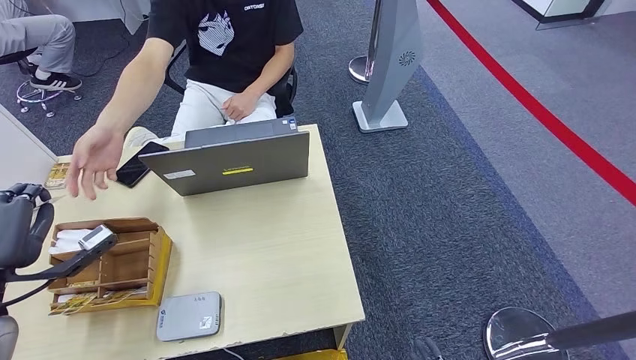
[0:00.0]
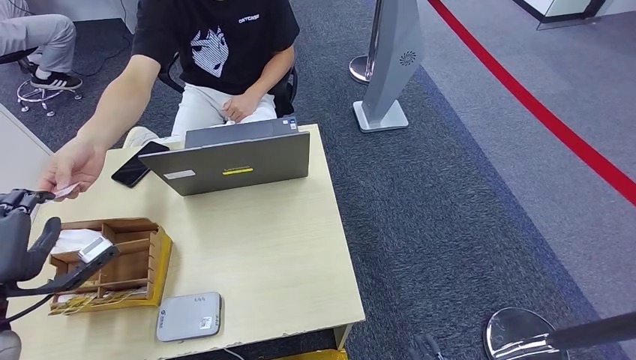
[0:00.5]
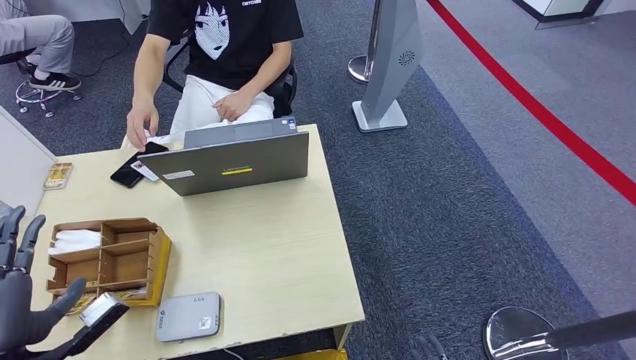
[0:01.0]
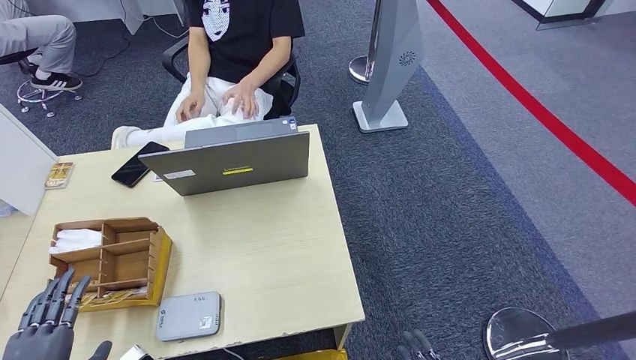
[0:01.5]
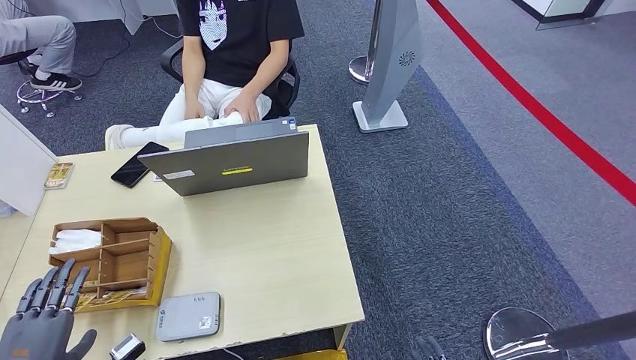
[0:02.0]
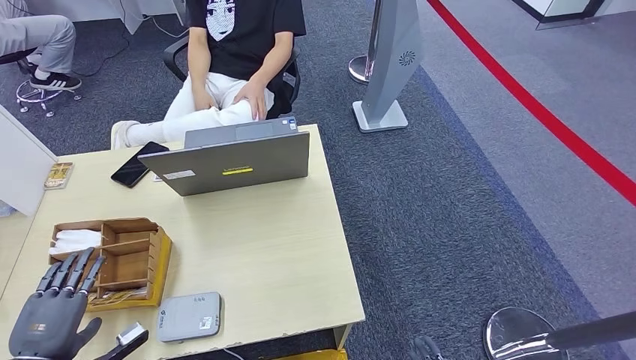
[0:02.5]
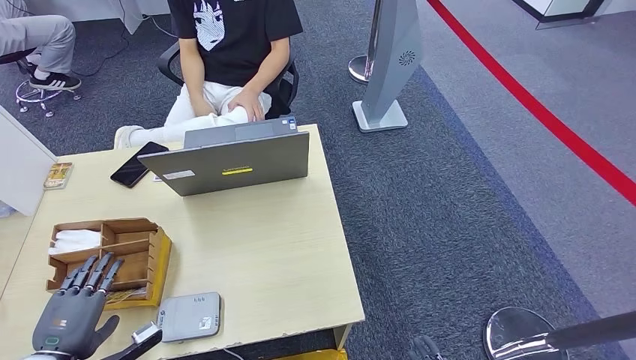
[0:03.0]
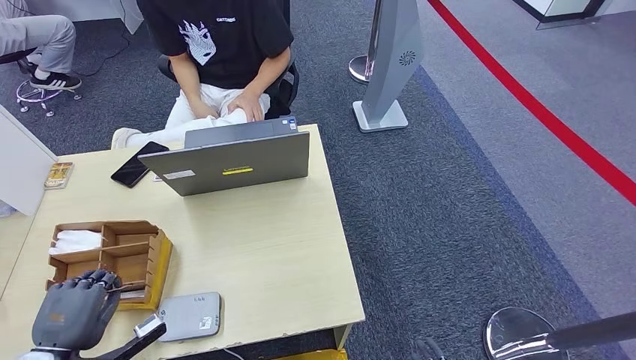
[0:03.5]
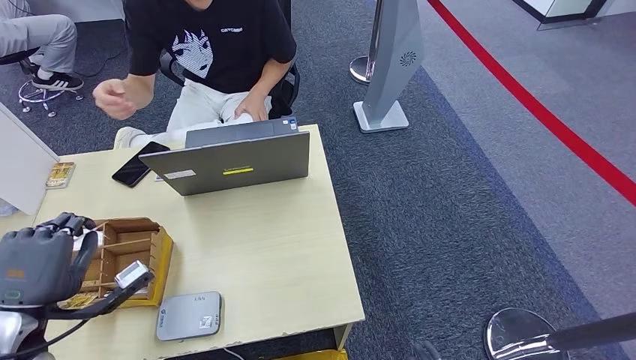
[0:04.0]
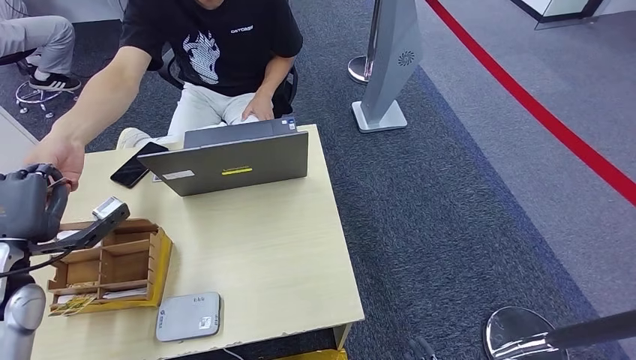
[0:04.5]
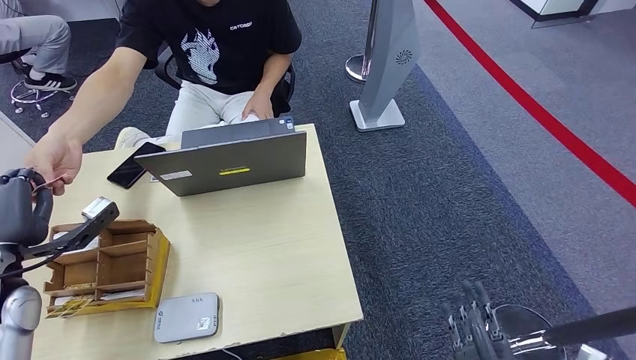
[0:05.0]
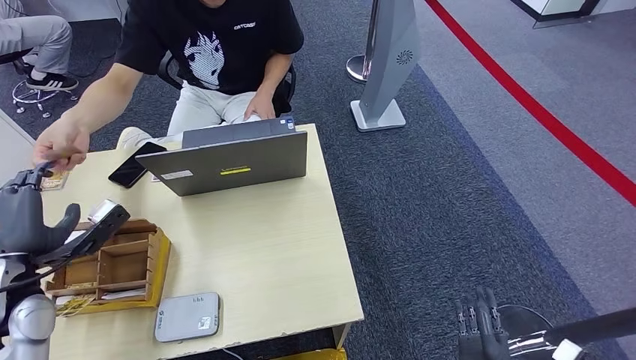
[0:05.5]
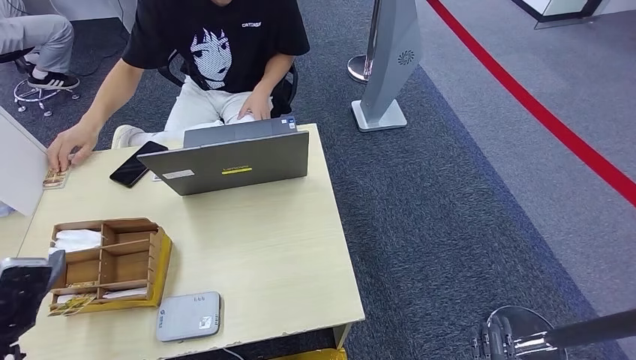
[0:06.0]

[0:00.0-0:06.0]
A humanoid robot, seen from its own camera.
Step, 0:00.5 to 0:03.5: Pick up the room key from the key card box.
Step, 0:04.0 to 0:06.0: Hand the room key to the person.
0:00.0 to 0:02.0: The left hand heads backward and downward, covering roughly 20 cm.
0:02.0 to 0:04.0: The left hand is displaced forward and upward by roughly 10 cm.
0:04.0 to 0:06.0: The right hand shifts approximately 10 cm downward, forward and to the right. Meanwhile the left hand travels forward and back again, roughly 10 cm each way.
